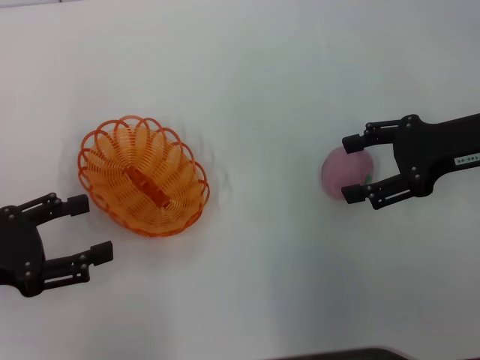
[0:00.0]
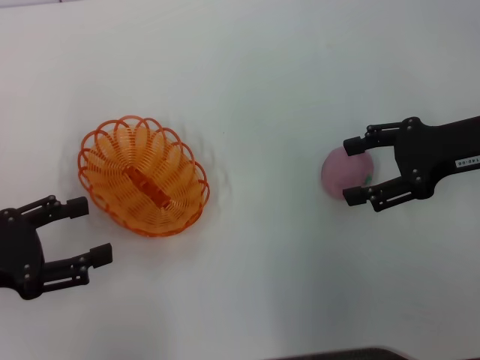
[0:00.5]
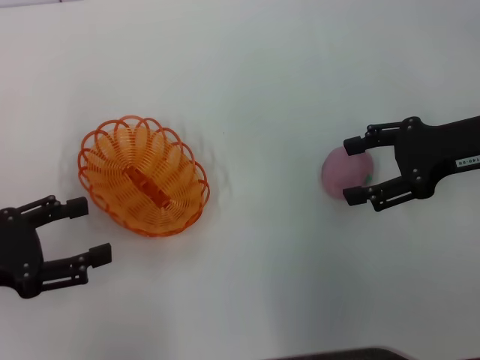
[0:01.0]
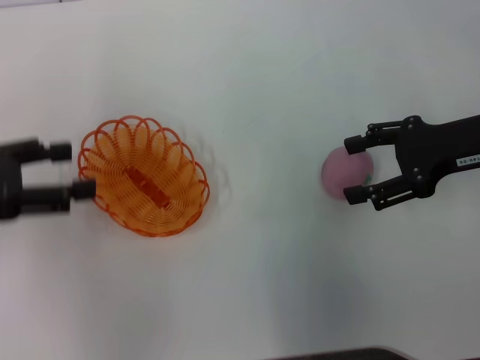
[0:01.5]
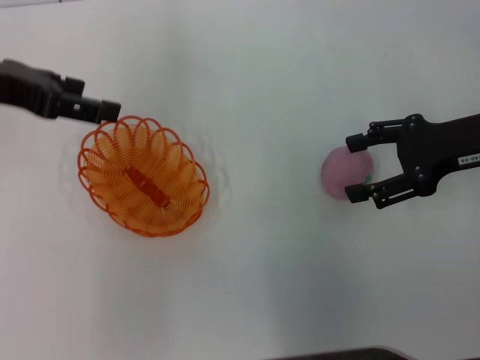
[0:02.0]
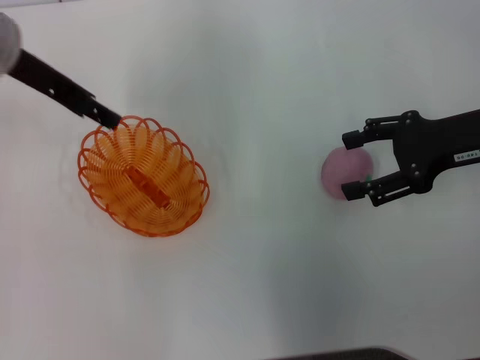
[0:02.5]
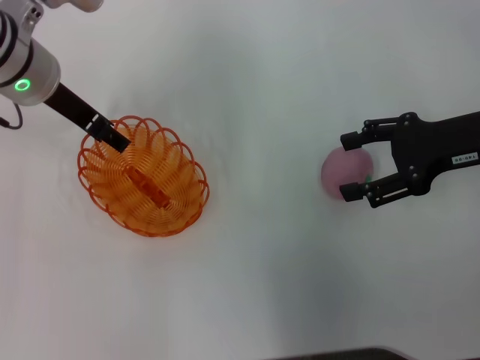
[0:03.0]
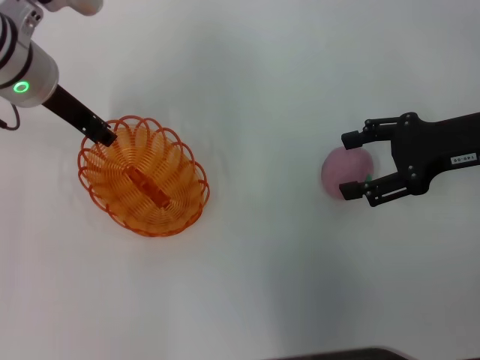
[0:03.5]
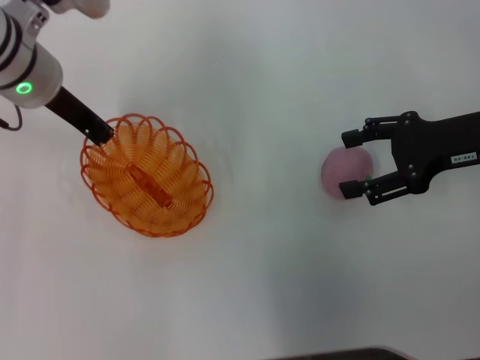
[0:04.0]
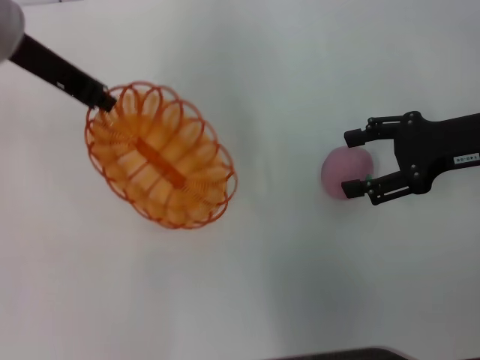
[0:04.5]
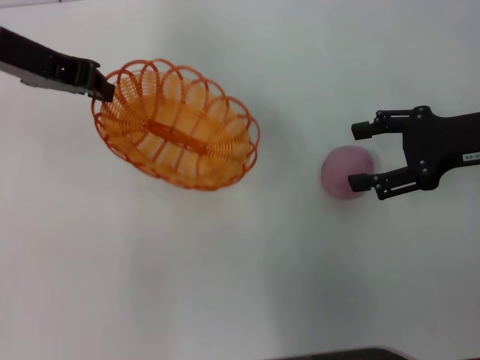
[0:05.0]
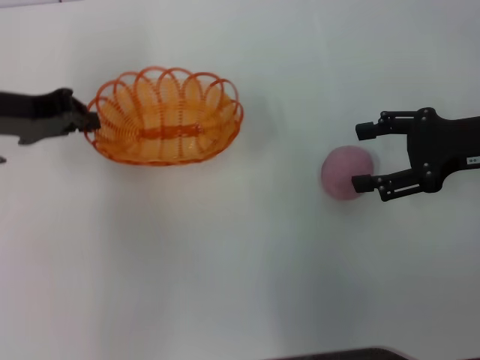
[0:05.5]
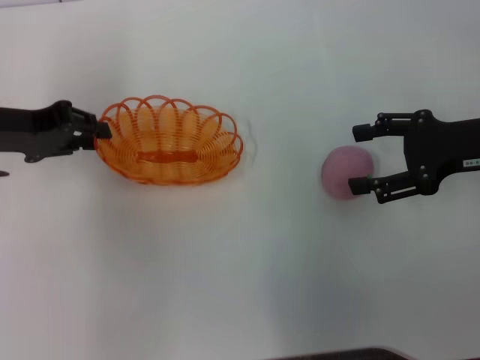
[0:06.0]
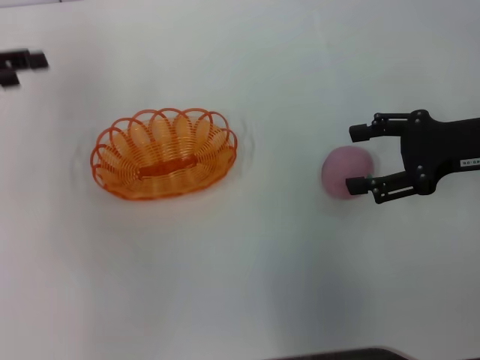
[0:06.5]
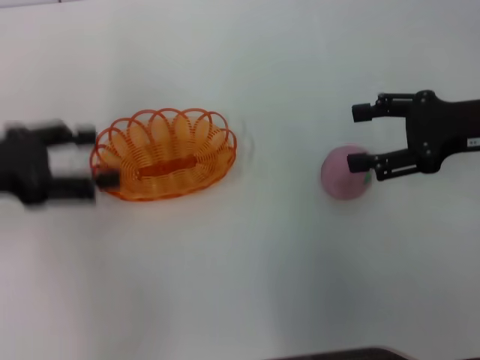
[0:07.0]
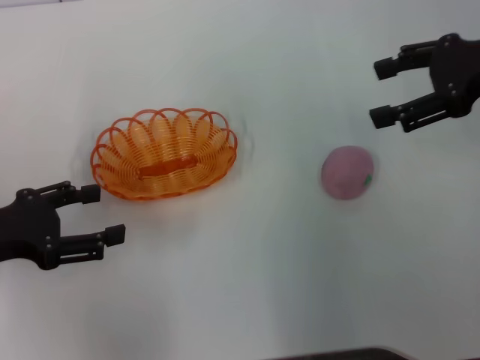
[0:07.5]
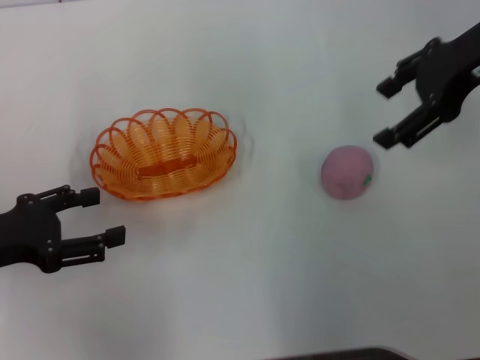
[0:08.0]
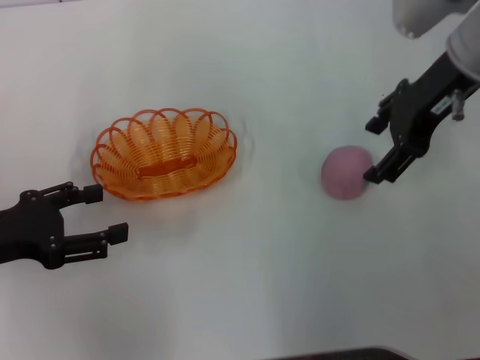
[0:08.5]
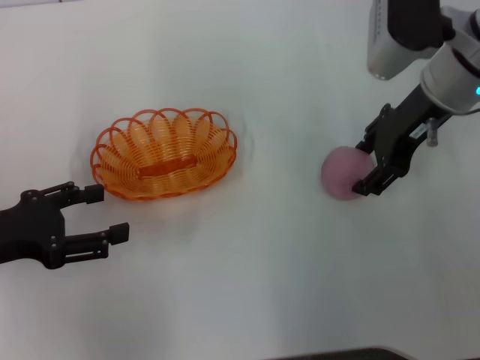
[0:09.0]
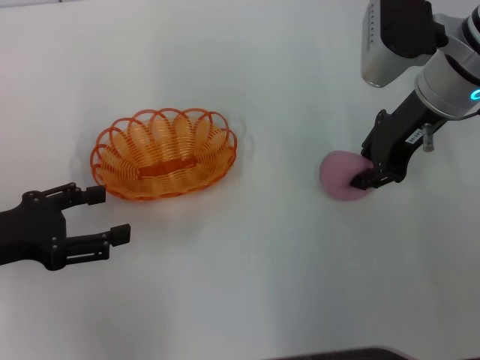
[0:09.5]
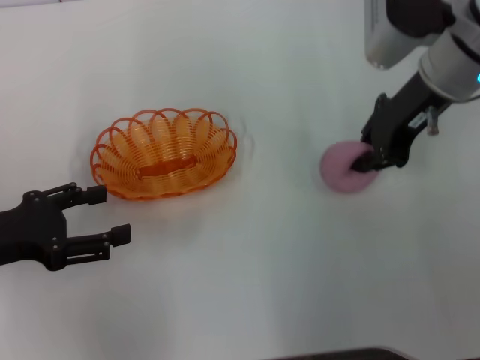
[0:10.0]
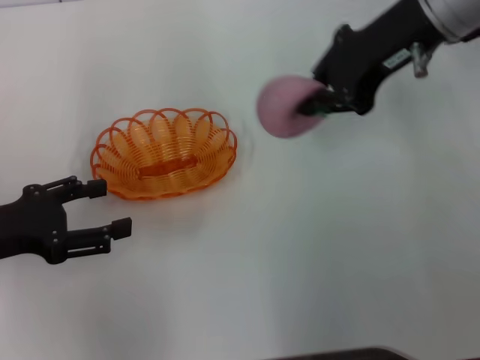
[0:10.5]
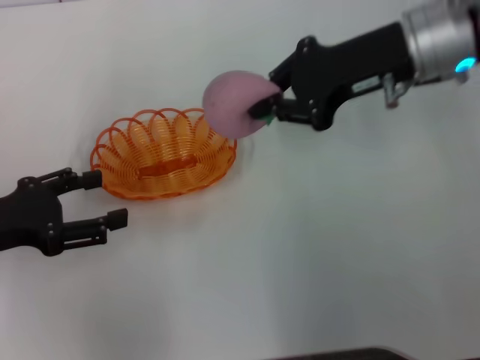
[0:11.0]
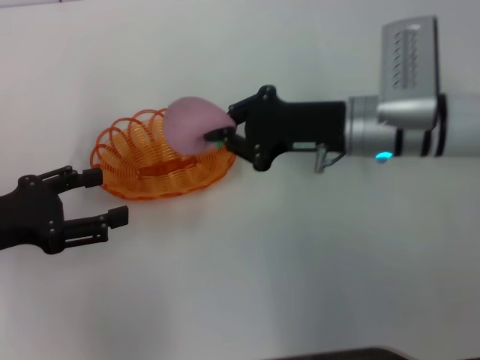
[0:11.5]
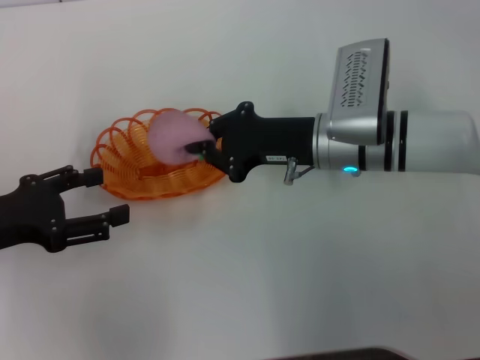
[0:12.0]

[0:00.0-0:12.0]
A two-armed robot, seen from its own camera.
Step, 0:00.0 to 0:04.0: Pick up the basket with the left gripper.
Step, 0:05.0 to 0:06.5: Place the basket in the center of view with the left gripper.
Step, 0:07.0 to 0:10.5: Pick up the peach with the right gripper.
0:00.0 to 0:02.0: The left gripper heads forward, upward and to the right, covering some 20 cm.
0:02.0 to 0:04.0: The left gripper is displaced to the right, downward and forward by some 10 cm, and closes up.
0:04.0 to 0:06.0: The left gripper goes roughly 10 cm to the left and backward, and moves some 5 cm upward and comes back.
0:06.0 to 0:08.0: The left gripper is displaced backward by approximately 10 cm, and opens up. The right gripper travels upward and forward by about 15 cm.
0:08.0 to 0:10.0: The right gripper heads downward and to the left, covering about 10 cm, and closes its fingers.
0:10.0 to 0:12.0: The right gripper moves downward and to the left, about 15 cm.

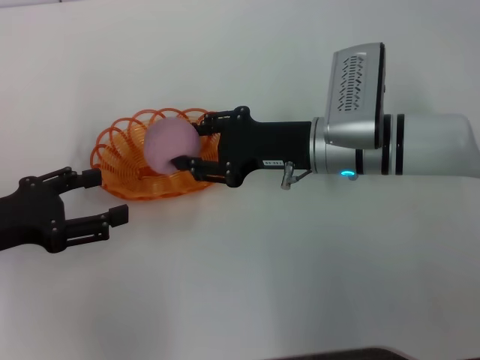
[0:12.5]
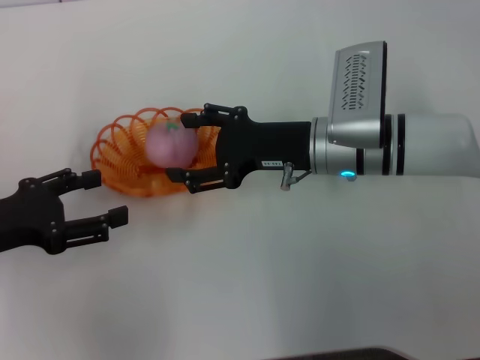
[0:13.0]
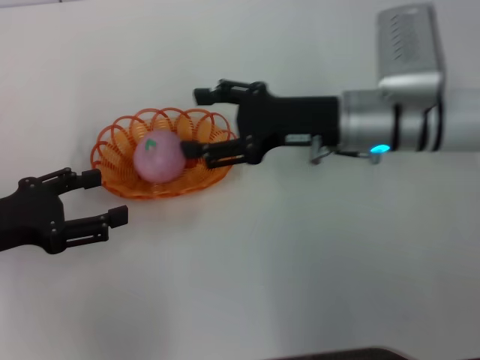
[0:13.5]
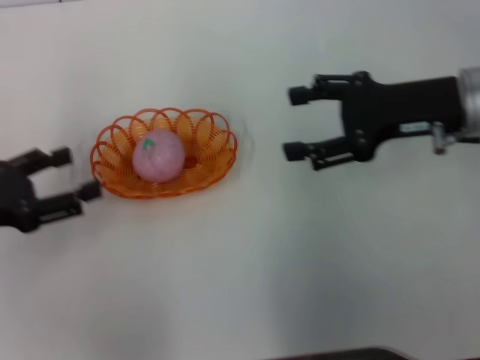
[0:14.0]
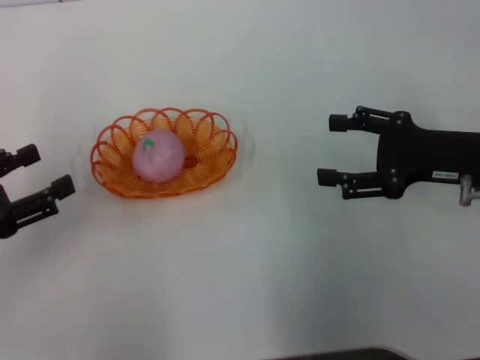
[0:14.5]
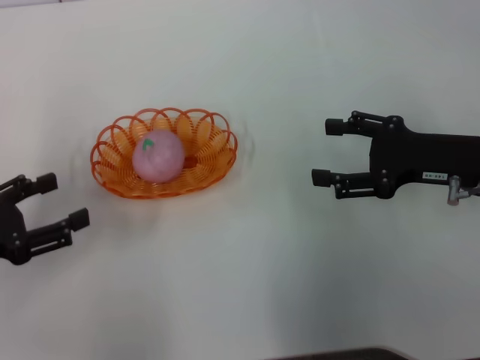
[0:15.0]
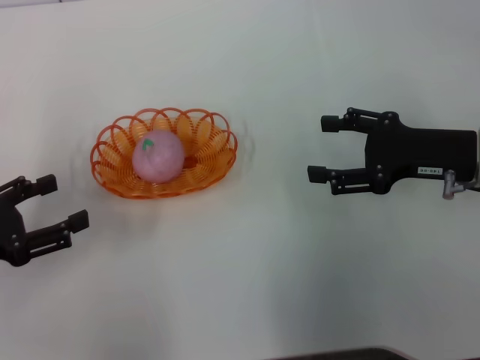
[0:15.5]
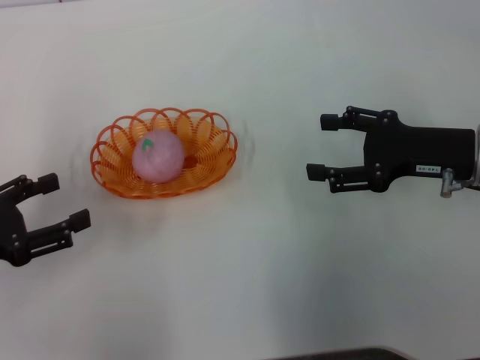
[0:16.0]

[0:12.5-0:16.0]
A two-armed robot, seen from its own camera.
0:12.5 to 0:14.5: The right gripper travels to the right and backward by about 15 cm, and opens up.
0:14.5 to 0:16.0: The grippers make only small movements.
